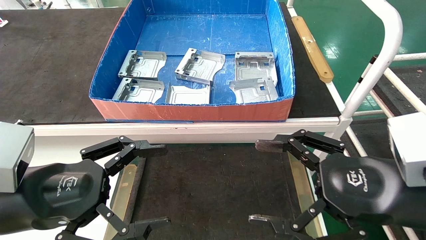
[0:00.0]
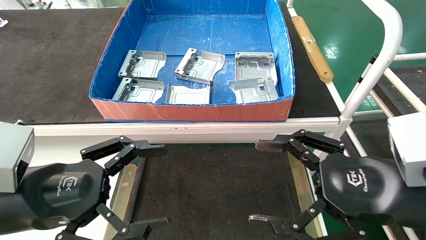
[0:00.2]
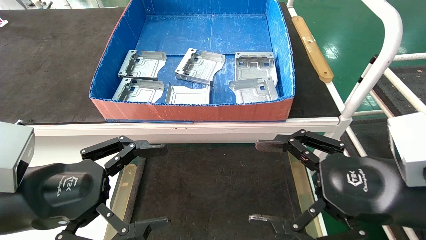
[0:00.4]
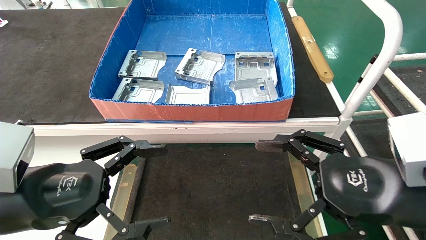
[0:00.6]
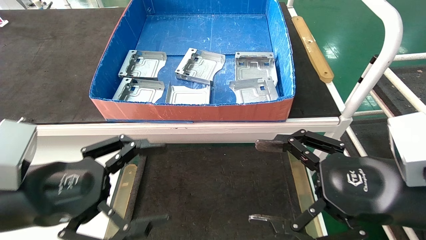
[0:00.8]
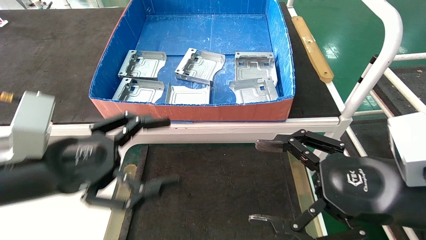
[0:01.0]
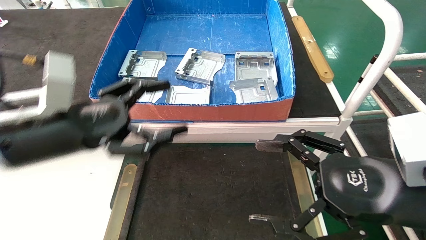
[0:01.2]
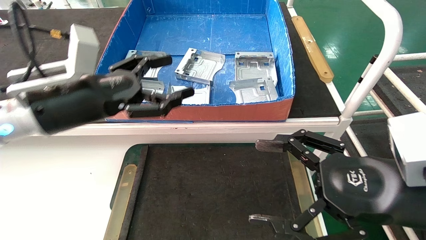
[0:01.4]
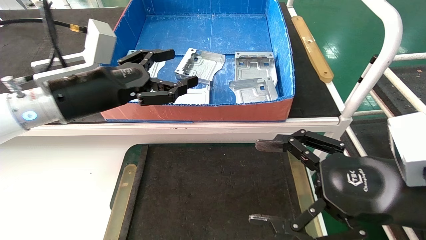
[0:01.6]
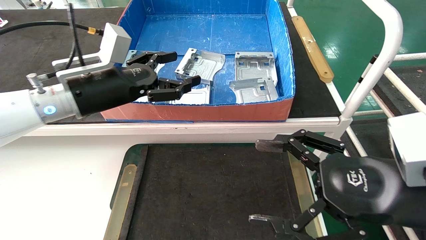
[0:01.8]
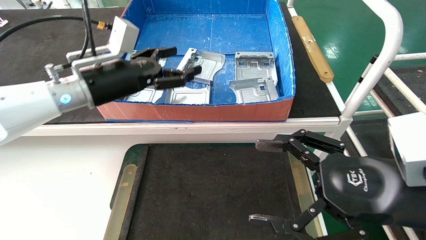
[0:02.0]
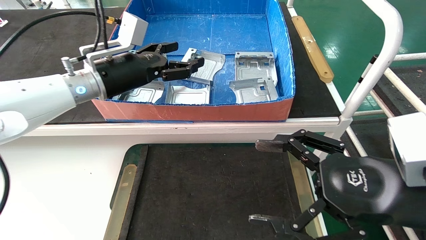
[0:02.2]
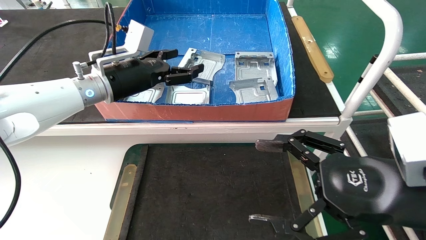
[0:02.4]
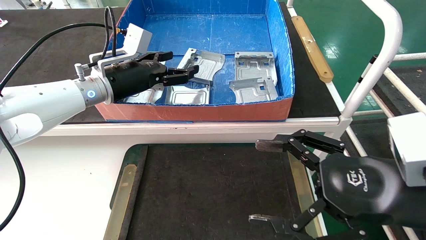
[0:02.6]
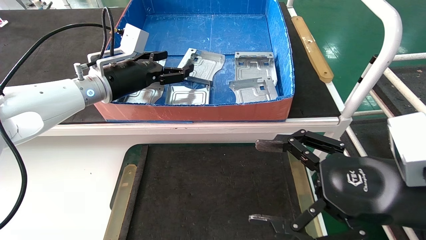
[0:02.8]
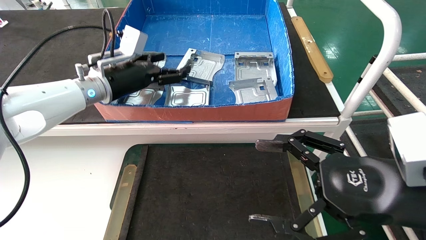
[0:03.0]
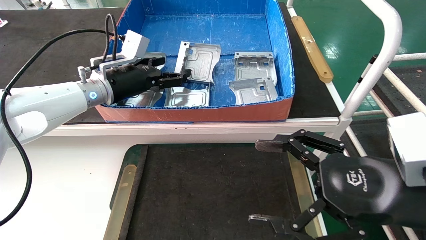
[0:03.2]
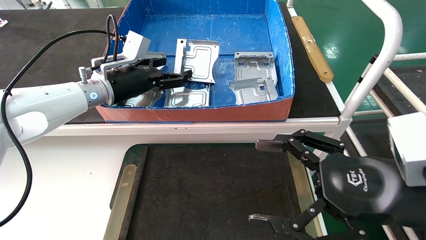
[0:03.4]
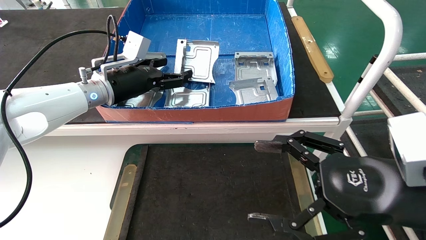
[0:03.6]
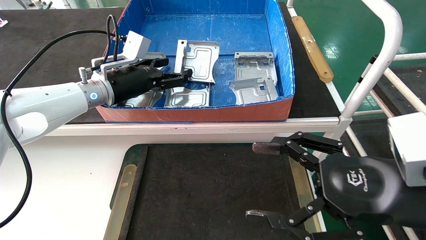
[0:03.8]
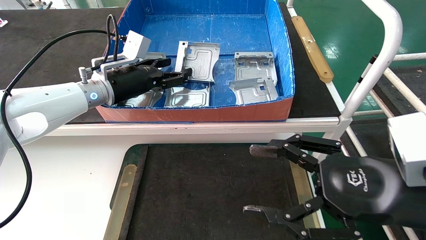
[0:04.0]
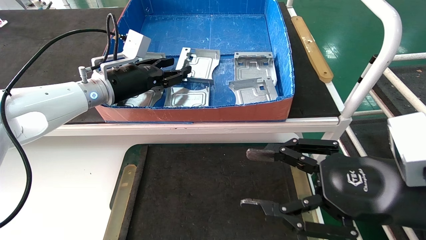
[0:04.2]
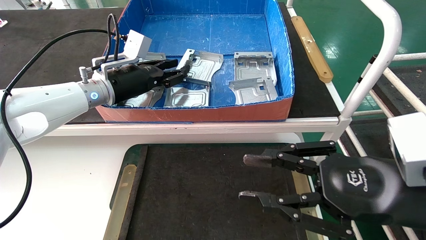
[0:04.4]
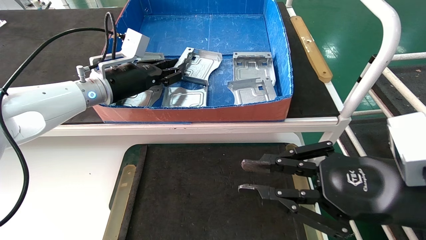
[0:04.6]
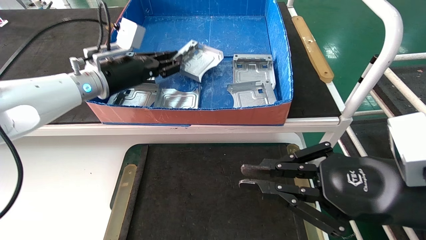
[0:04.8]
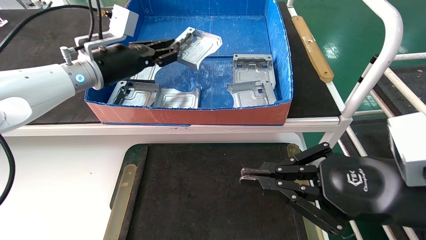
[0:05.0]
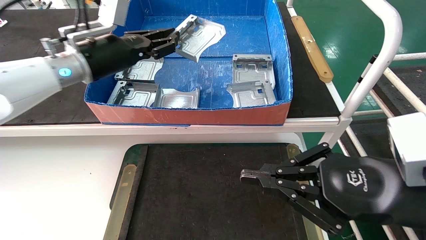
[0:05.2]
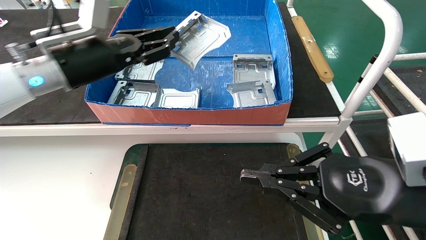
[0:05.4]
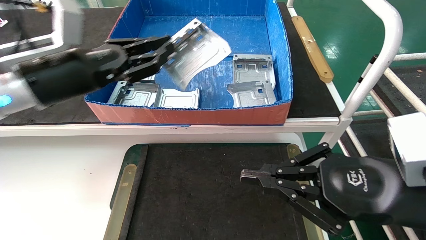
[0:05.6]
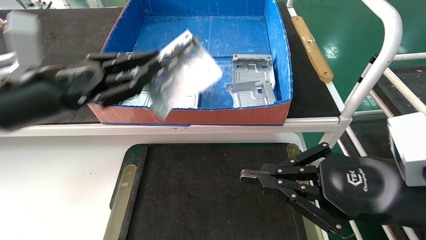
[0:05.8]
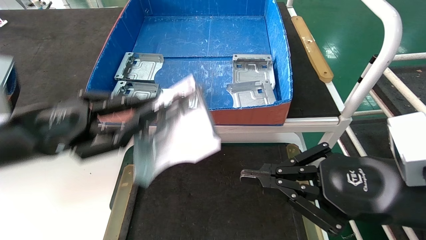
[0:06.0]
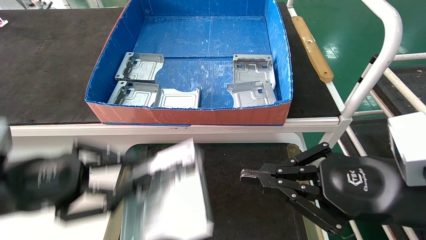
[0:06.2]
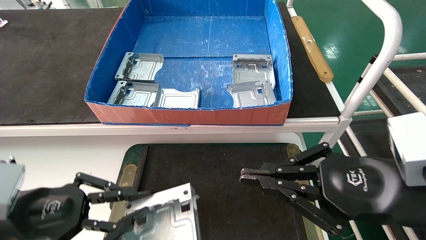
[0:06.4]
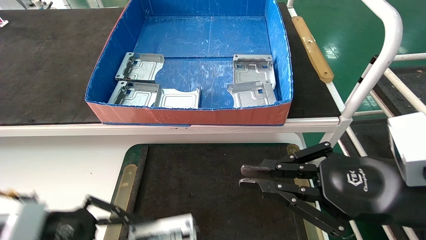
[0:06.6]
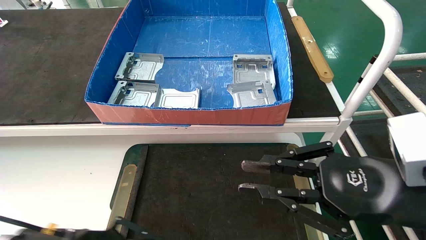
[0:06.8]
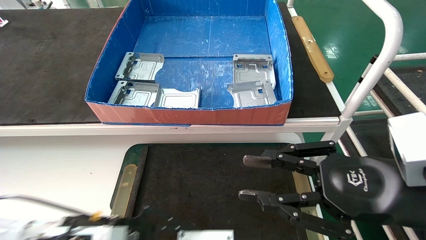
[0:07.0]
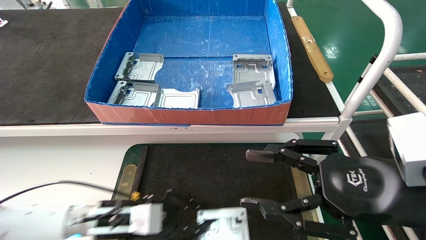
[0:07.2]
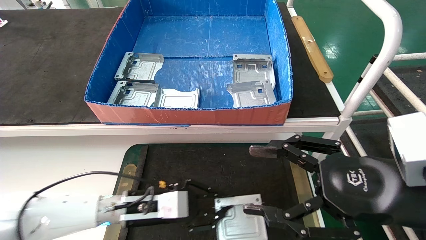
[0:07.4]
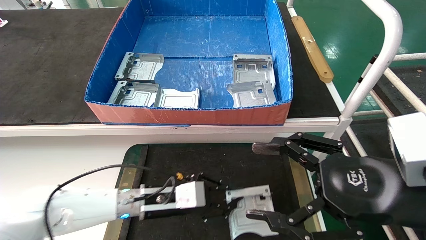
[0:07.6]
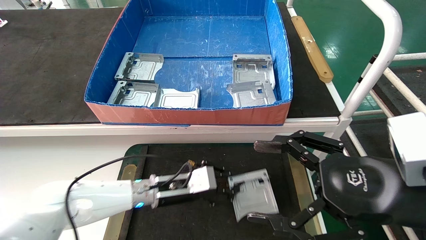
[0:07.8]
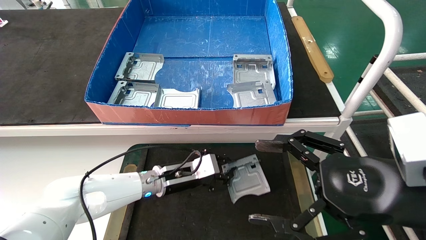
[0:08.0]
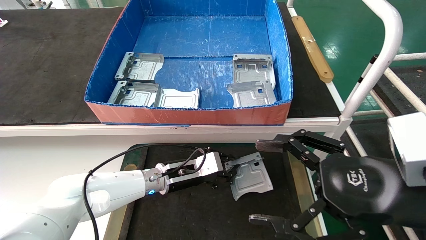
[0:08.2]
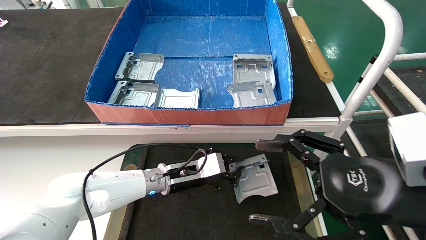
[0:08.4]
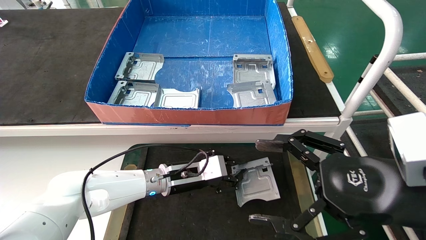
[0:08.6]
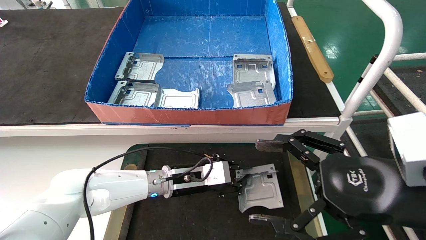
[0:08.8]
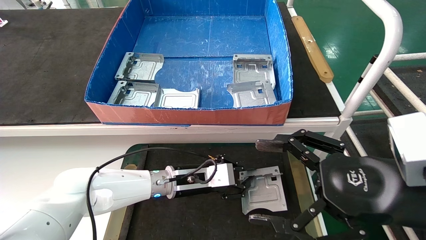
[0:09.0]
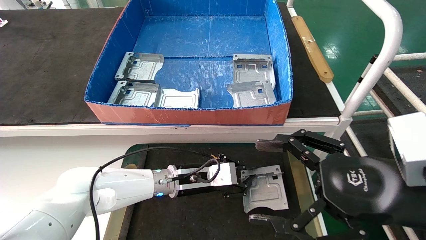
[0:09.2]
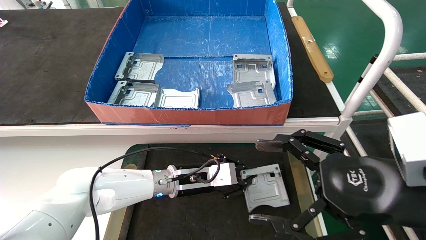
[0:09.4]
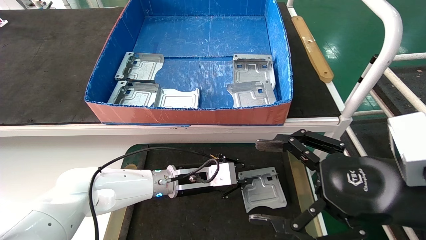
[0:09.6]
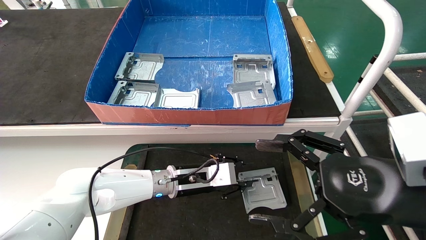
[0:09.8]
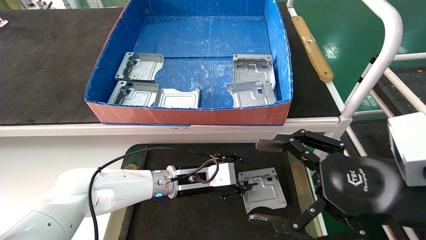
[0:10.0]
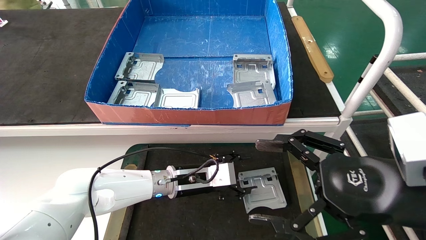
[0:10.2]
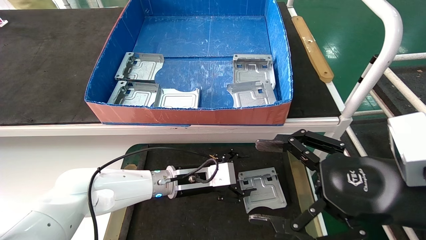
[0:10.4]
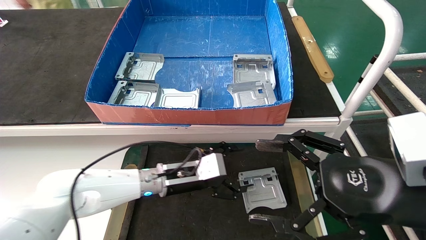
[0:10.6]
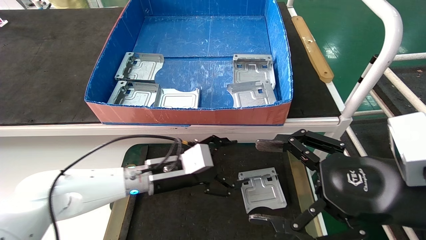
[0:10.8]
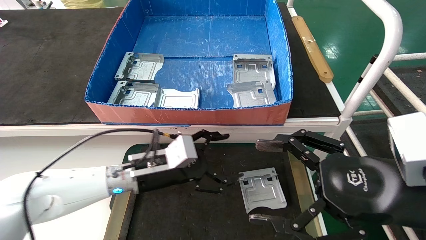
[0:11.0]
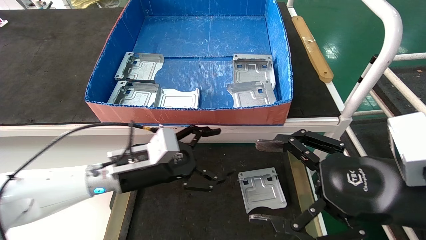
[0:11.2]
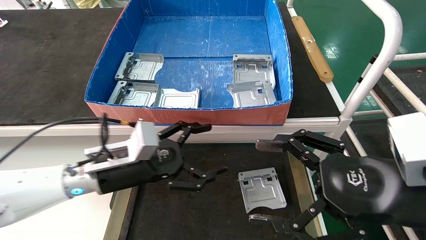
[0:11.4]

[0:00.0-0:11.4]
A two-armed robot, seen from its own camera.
Task of the whole recording: take the accessories out of the box and place them on the table.
Step, 0:01.4 to 0:05.0: Pick up the hard drive bracket from the feeding area.
Step, 0:05.2 to 0:09.8: Place the hard drive bracket into the box.
0:00.0 to 0:01.4: The left gripper travels forward and upward by roughly 15 cm.
0:01.4 to 0:02.8: The left gripper shifts about 15 cm forward.
0:02.8 to 0:04.2: The left gripper closes up.
0:04.2 to 0:05.6: The right gripper closes its fingers. Meanwhile the left gripper travels backward and to the left by roughly 15 cm, and closes its fingers.
0:05.6 to 0:07.2: The right gripper opens. Meanwhile the left gripper moves downward, about 25 cm.
0:07.2 to 0:08.6: The right gripper opens up. Meanwhile the left gripper heads to the right and forward, covering about 15 cm.
0:08.6 to 0:10.0: The left gripper opens.
0:10.0 to 0:11.4: The left gripper is displaced to the left, backward and upward by some 15 cm, and opens up.
